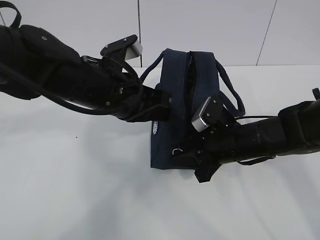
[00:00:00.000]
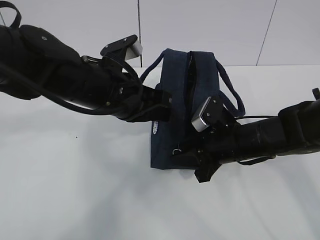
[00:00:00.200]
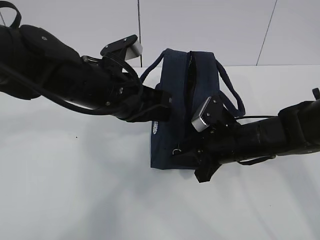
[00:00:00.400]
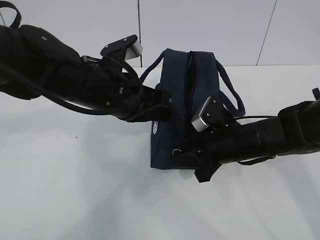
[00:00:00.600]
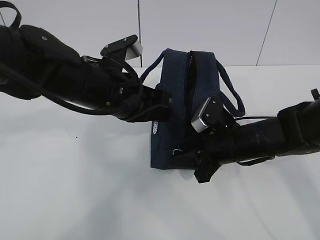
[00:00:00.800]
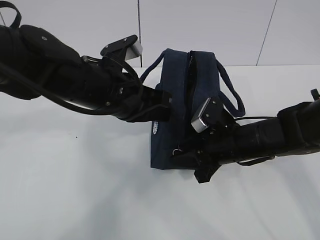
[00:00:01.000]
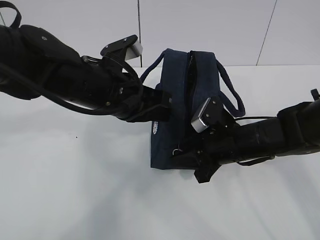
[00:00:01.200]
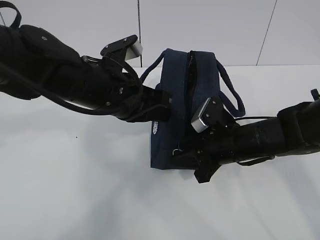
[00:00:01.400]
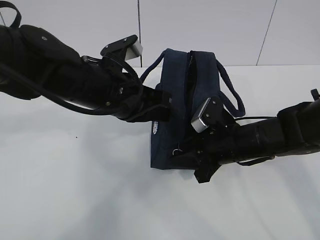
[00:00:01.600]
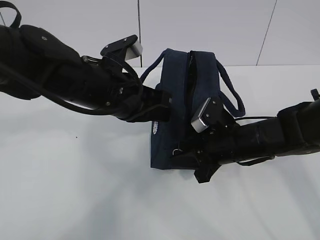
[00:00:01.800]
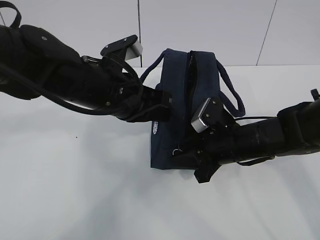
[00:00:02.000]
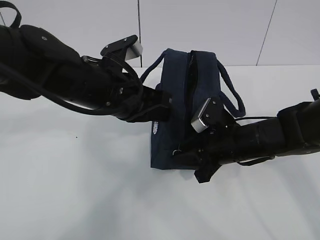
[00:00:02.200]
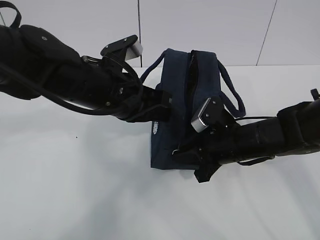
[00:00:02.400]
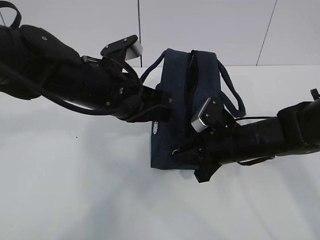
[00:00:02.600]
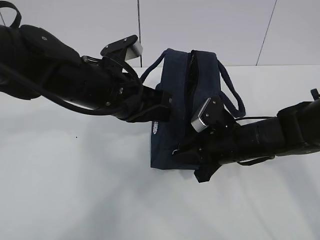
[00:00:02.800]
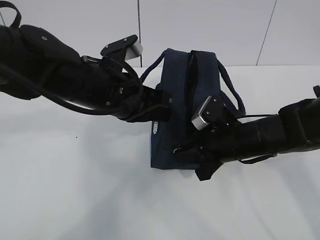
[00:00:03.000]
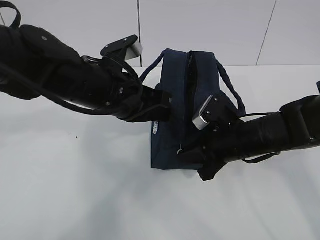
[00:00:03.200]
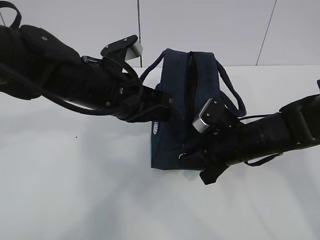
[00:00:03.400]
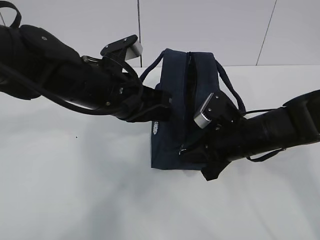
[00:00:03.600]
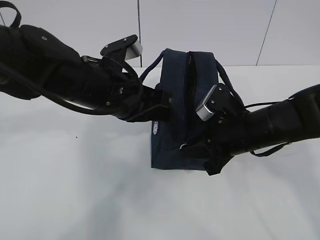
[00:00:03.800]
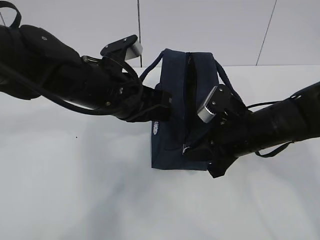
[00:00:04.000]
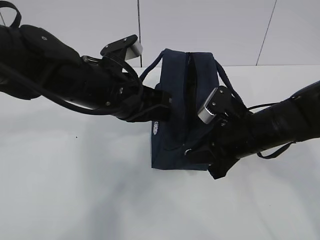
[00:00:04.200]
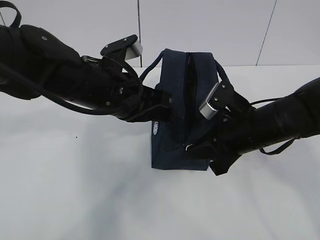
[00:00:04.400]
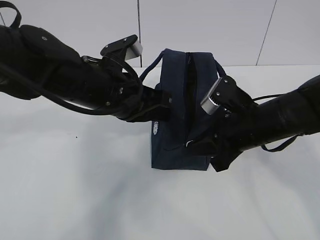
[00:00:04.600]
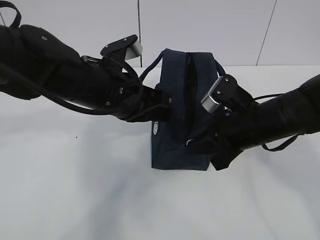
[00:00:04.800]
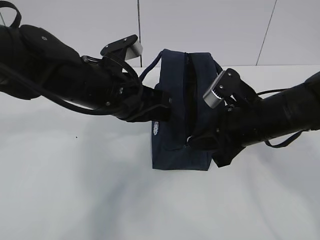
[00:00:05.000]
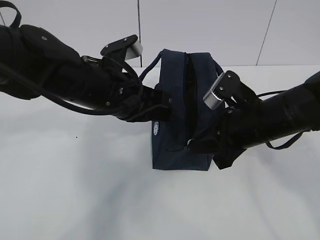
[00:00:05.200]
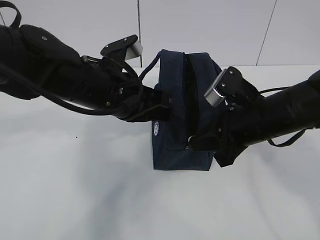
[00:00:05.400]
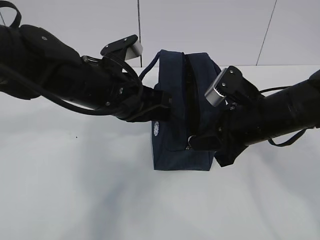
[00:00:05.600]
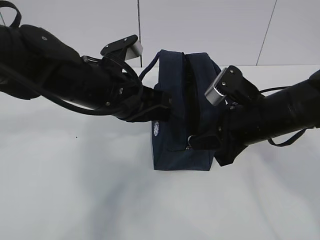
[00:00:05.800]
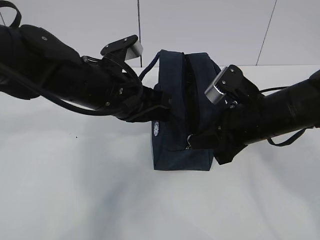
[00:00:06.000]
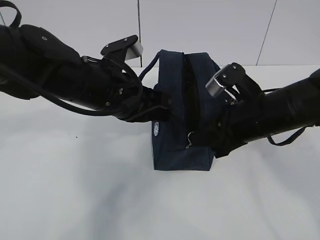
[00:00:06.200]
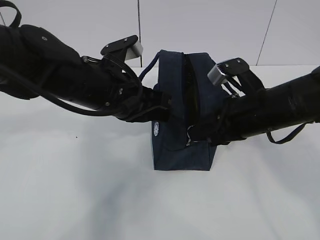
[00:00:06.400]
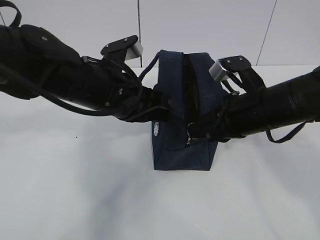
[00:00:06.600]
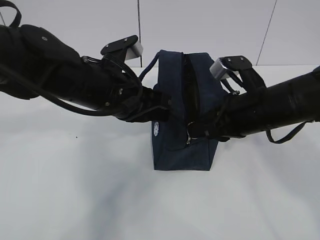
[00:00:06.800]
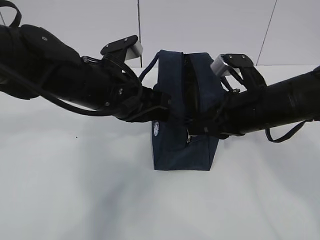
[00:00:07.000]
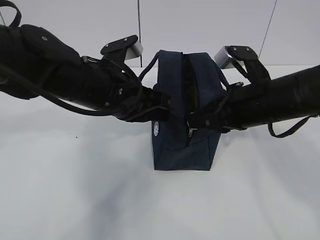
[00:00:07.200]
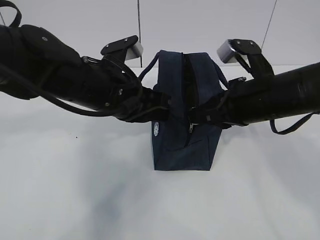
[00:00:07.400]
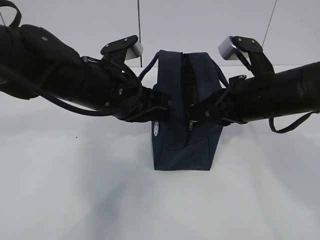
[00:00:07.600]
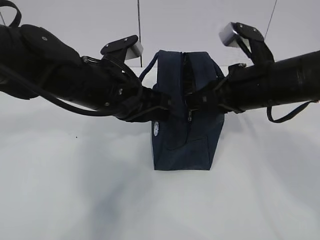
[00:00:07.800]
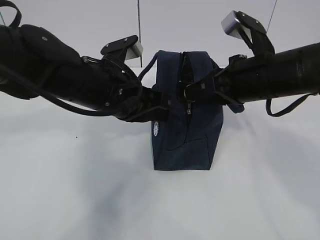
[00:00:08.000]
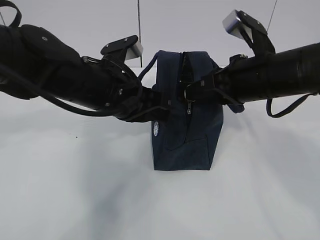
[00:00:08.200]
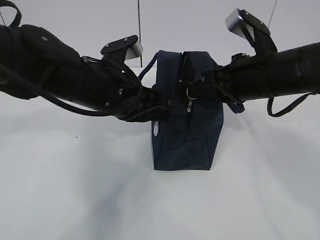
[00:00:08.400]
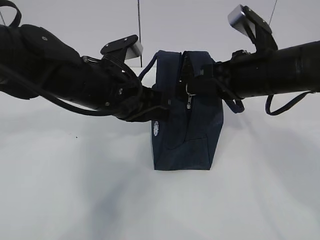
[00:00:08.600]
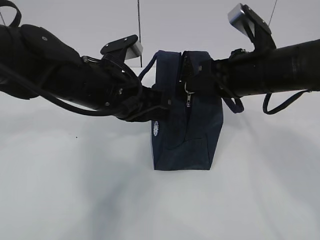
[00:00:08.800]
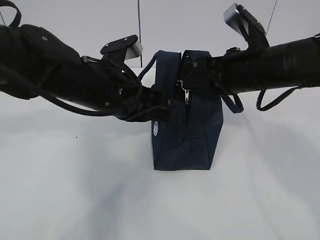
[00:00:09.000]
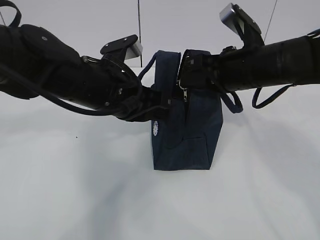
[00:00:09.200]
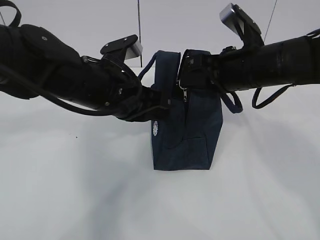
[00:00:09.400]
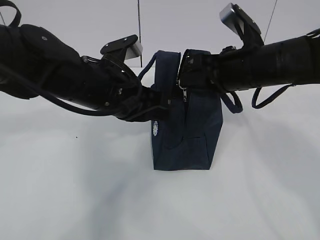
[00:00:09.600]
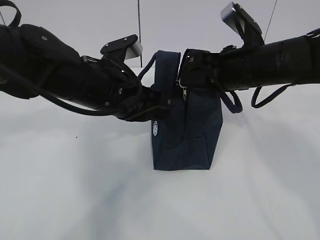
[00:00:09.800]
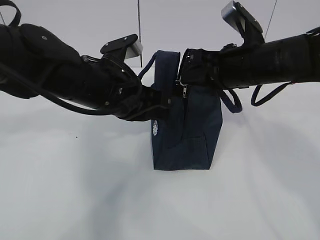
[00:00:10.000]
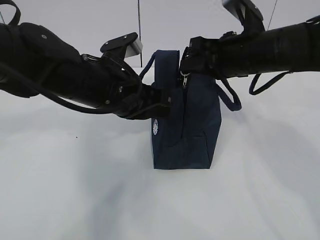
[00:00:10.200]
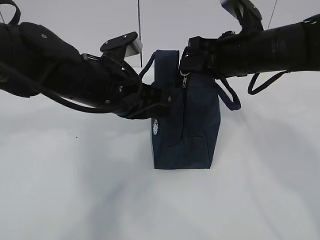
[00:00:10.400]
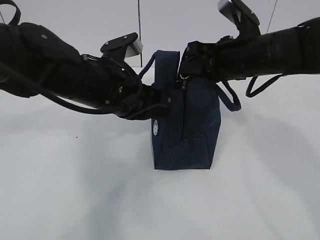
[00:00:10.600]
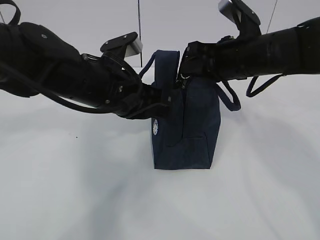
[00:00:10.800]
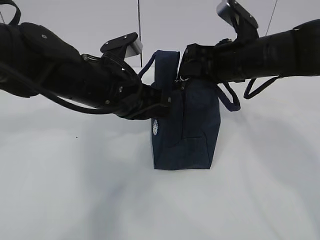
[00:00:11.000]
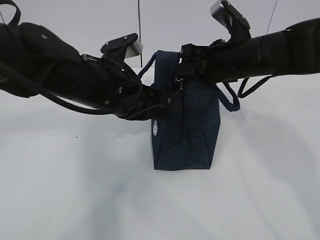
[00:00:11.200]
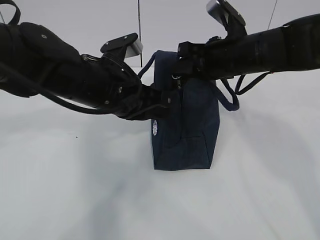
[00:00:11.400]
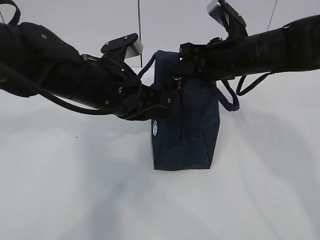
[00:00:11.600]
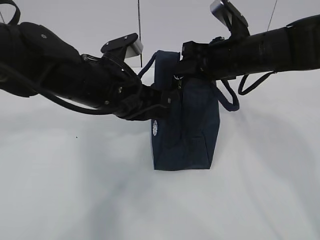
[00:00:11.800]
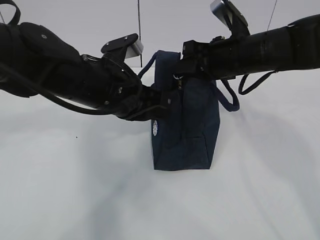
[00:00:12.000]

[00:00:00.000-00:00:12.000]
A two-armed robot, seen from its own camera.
00:00:00.000 to 00:00:03.000: Both grippers stay about where they are.
00:00:03.000 to 00:00:04.400: The right gripper moves about 5 cm.
00:00:04.400 to 00:00:06.000: The grippers make only small movements.
00:00:07.600 to 00:00:09.000: The grippers move only a little.
00:00:09.000 to 00:00:12.000: There are only small adjustments of the grippers.

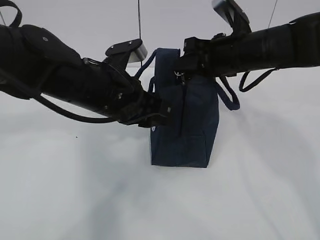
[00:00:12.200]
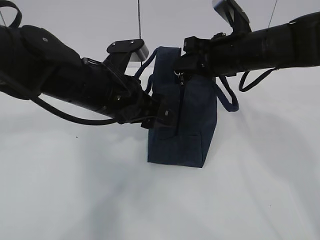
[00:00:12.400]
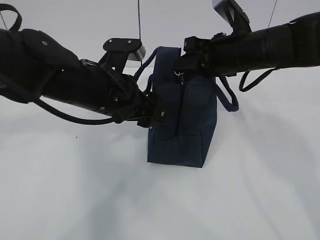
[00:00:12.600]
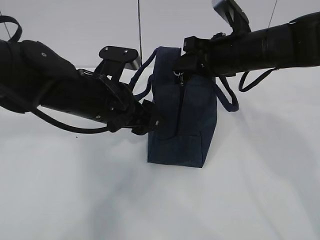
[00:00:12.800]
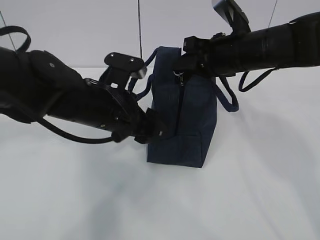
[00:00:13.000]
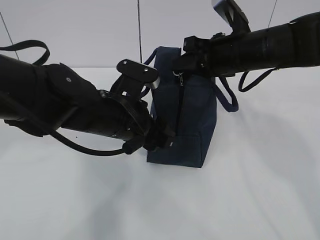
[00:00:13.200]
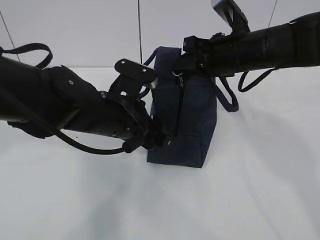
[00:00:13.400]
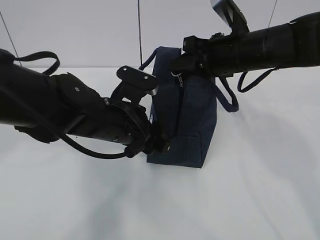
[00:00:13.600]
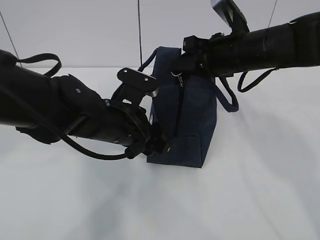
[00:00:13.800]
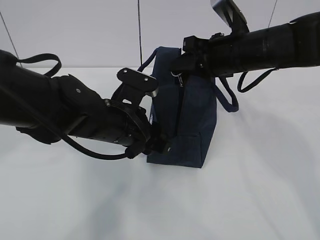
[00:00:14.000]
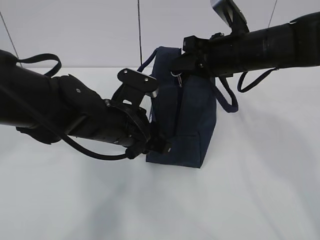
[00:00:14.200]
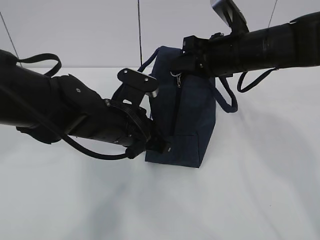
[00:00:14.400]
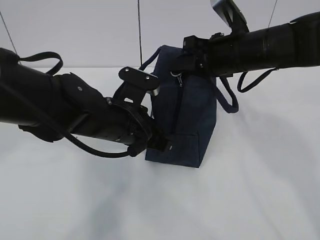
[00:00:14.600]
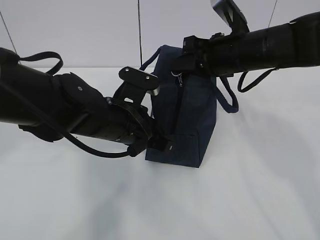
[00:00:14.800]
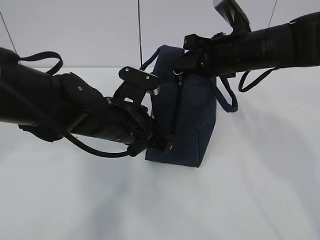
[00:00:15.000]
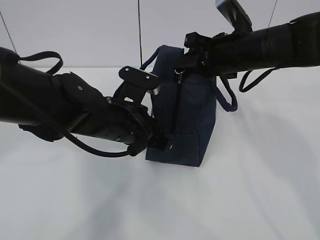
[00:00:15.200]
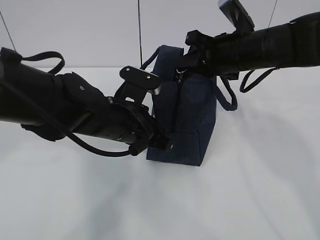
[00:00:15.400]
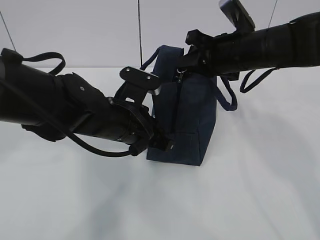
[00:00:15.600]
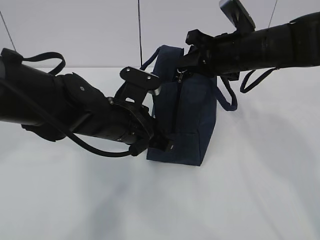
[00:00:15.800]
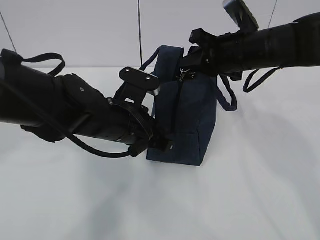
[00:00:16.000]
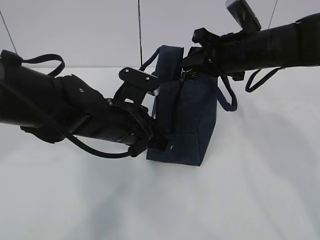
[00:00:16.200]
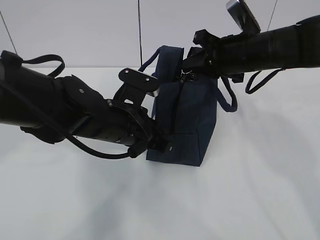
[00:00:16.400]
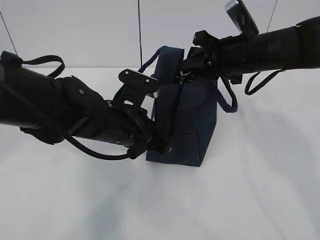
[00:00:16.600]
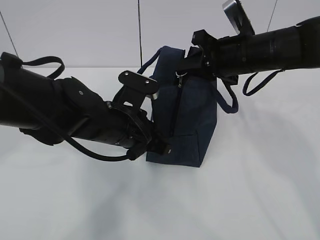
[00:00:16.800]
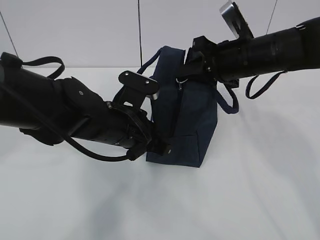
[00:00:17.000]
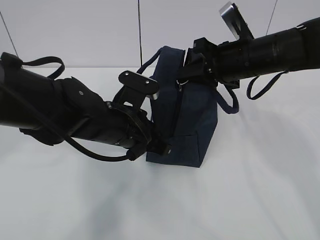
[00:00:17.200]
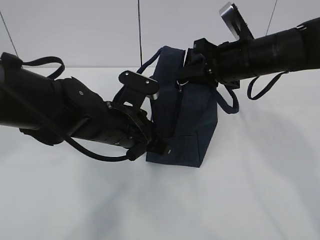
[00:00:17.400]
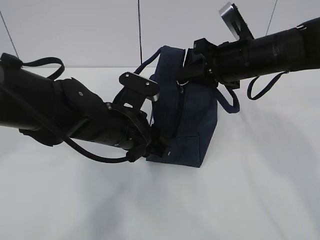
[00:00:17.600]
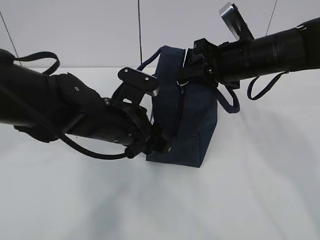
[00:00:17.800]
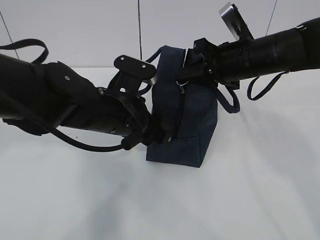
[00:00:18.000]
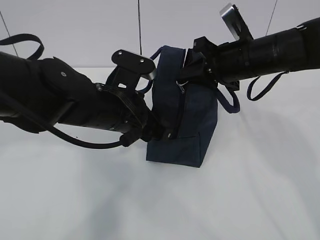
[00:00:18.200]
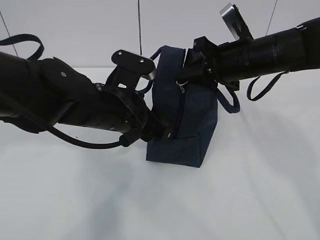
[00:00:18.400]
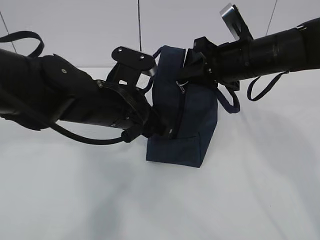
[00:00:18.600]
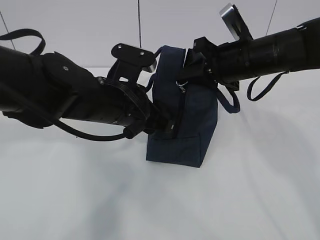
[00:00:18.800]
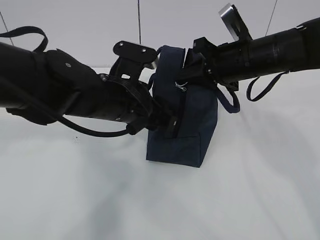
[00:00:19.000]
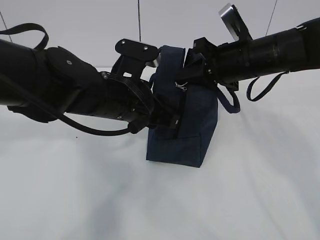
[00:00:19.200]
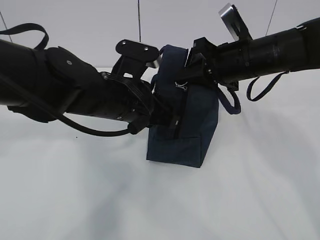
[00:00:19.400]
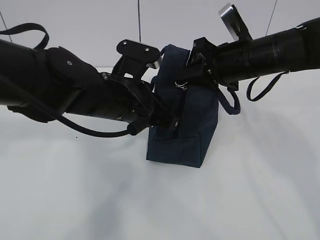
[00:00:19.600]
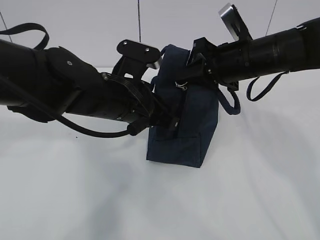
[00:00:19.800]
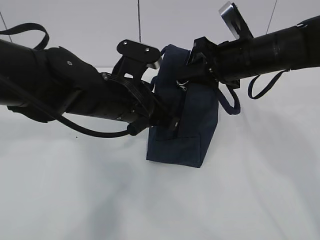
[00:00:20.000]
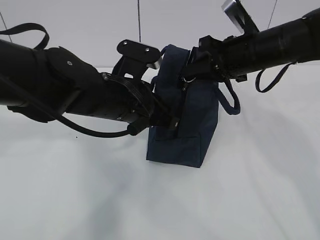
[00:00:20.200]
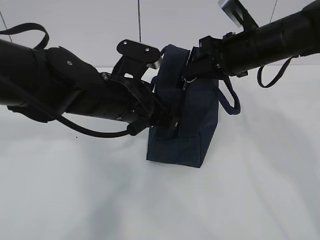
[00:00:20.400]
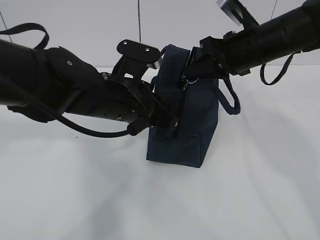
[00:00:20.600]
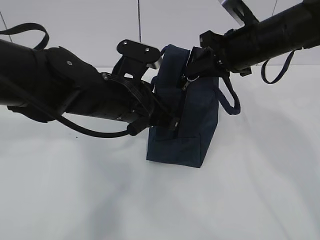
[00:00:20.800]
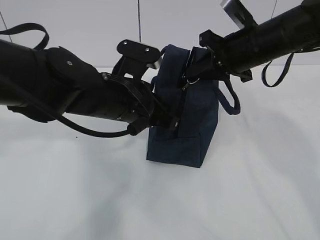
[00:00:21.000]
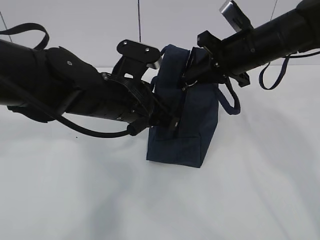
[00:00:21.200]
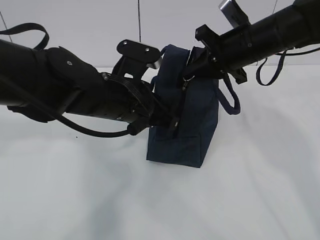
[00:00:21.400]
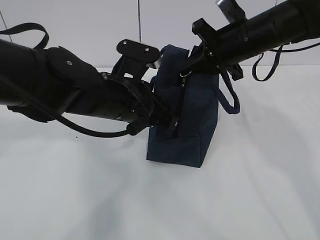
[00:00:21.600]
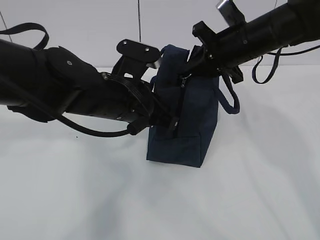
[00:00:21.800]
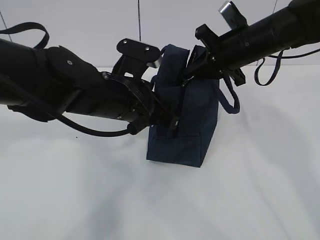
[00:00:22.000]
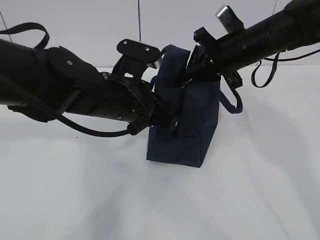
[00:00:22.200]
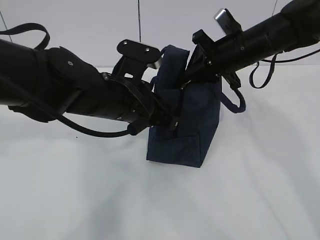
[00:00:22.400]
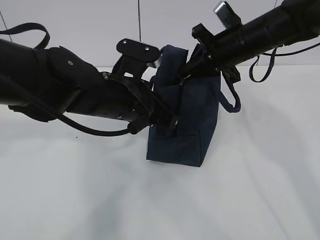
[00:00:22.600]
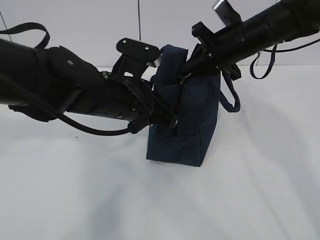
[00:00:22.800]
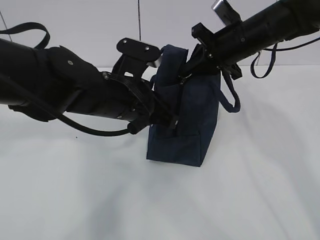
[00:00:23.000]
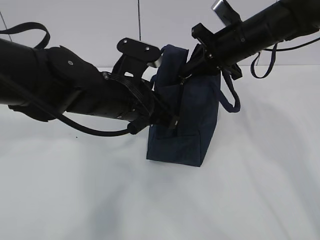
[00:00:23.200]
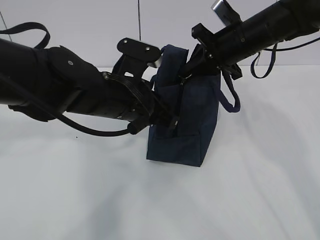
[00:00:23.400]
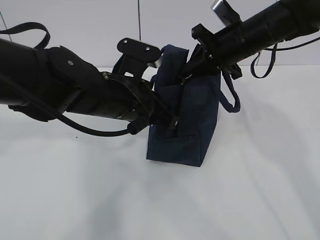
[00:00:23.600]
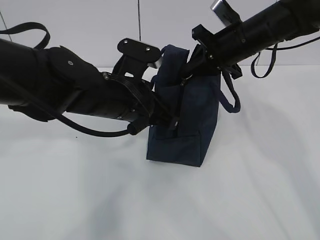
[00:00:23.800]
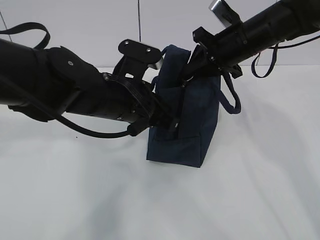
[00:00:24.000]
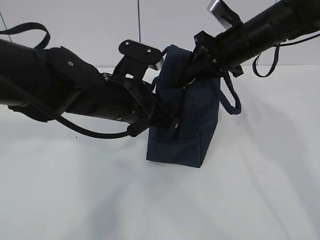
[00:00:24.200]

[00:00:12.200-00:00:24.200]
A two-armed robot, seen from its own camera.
Step, 00:00:12.200 to 00:00:19.200: Pull the zipper with your right hand.
00:00:12.200 to 00:00:13.800: The left gripper heads downward, covering about 5 cm.
00:00:13.800 to 00:00:15.200: The left gripper closes its fingers.
00:00:15.200 to 00:00:16.600: The grippers stay close to where they were, moving slightly.
00:00:16.600 to 00:00:18.200: The left gripper opens up.
00:00:18.200 to 00:00:19.800: The left gripper closes its fingers.
00:00:19.800 to 00:00:24.200: The grippers move only a little.
